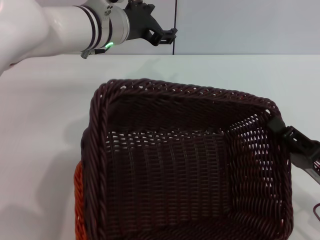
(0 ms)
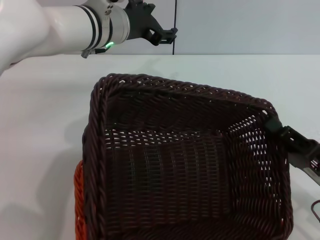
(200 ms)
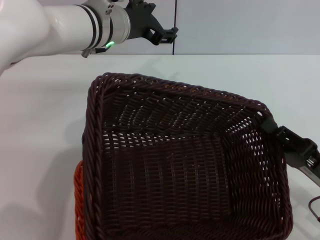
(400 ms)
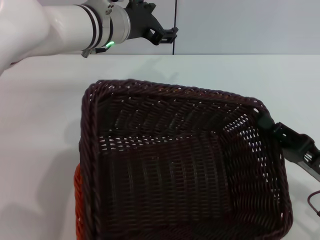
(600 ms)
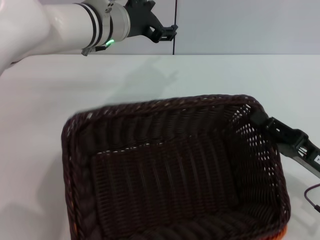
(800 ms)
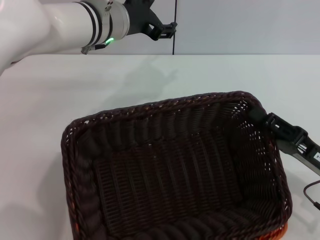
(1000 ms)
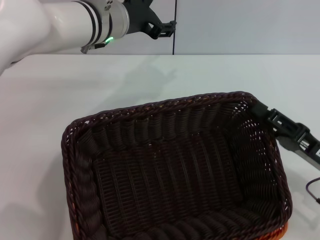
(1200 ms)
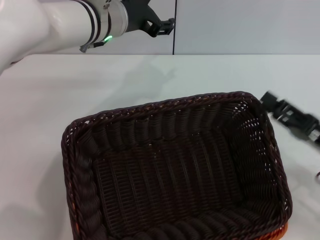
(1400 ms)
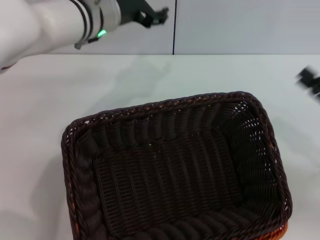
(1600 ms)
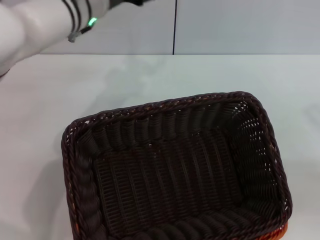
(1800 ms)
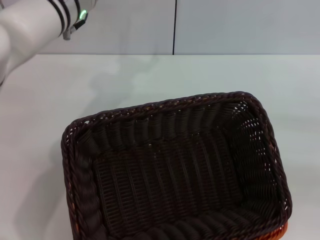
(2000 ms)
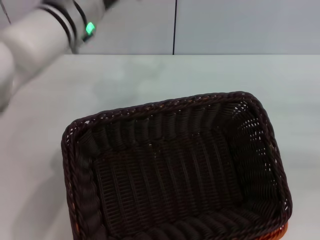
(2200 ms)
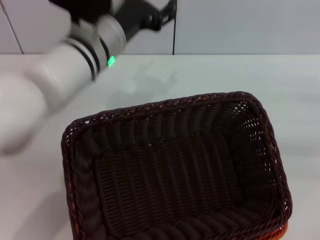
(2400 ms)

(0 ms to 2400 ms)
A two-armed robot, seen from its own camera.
0 ms - 1200 ms: The right gripper opens.
1200 ms - 2400 ms: The left gripper goes roughly 5 cm backward, while the right gripper travels to the right, forward and upward by approximately 20 cm.
